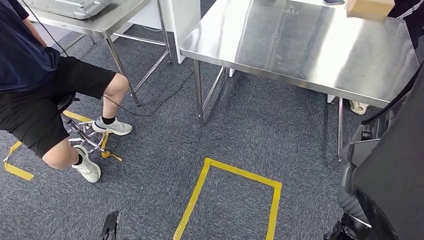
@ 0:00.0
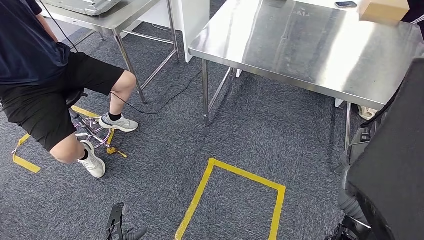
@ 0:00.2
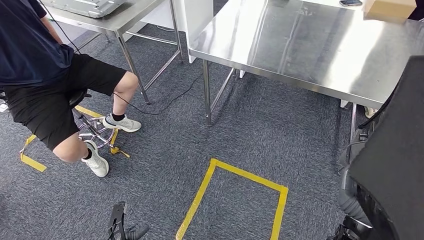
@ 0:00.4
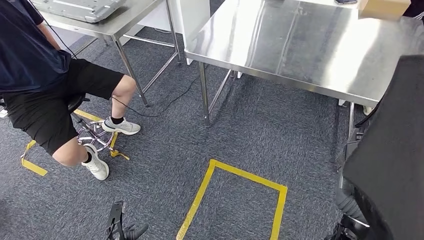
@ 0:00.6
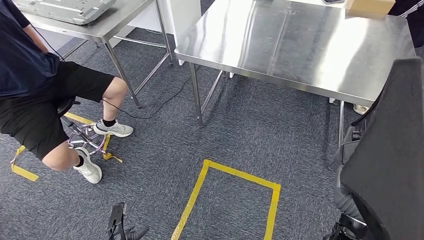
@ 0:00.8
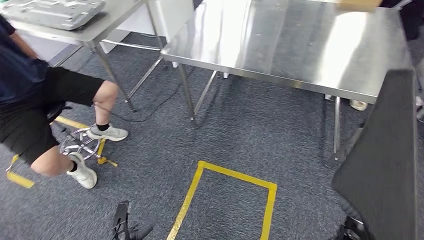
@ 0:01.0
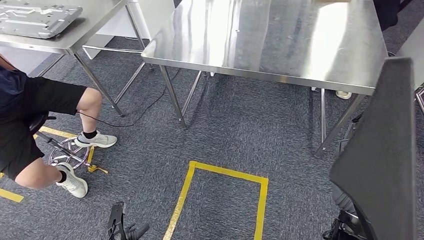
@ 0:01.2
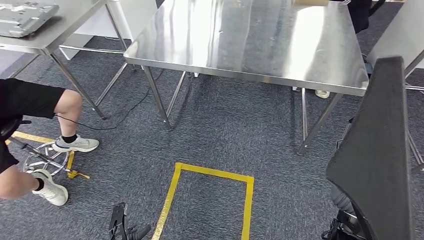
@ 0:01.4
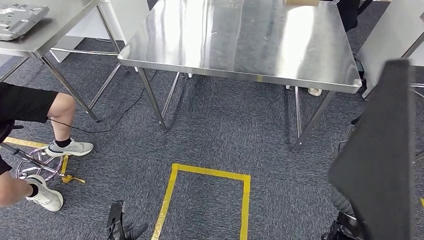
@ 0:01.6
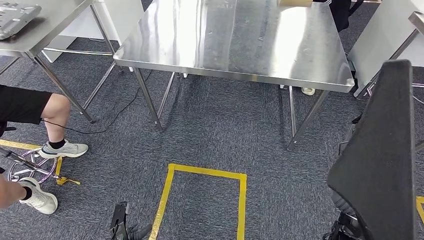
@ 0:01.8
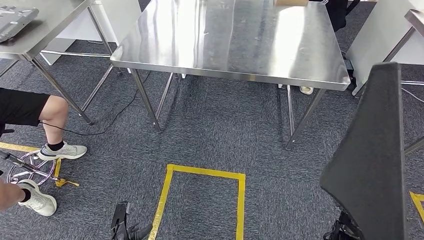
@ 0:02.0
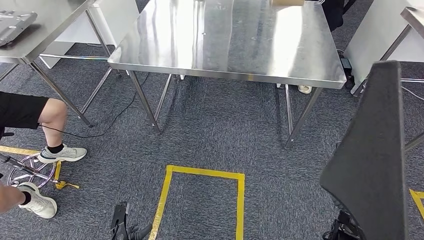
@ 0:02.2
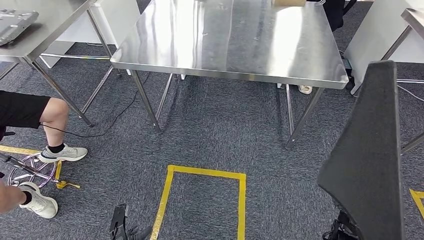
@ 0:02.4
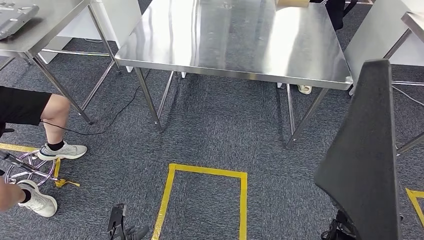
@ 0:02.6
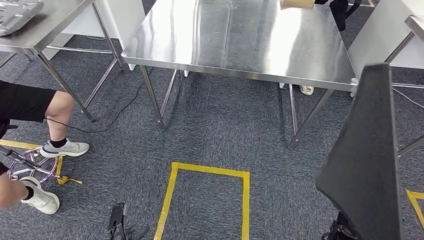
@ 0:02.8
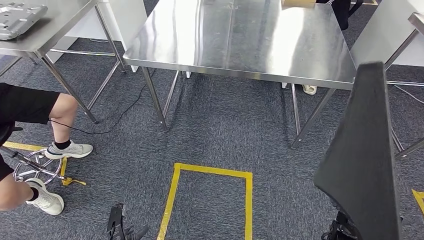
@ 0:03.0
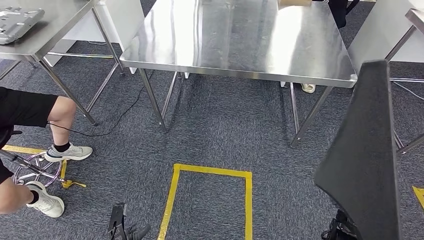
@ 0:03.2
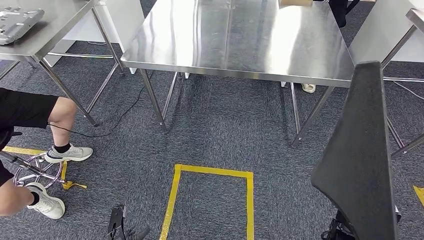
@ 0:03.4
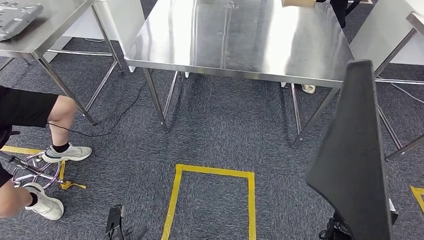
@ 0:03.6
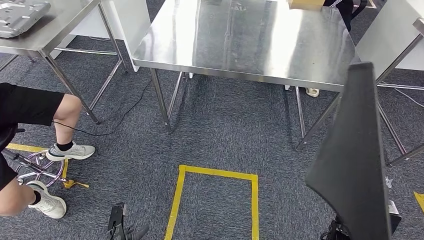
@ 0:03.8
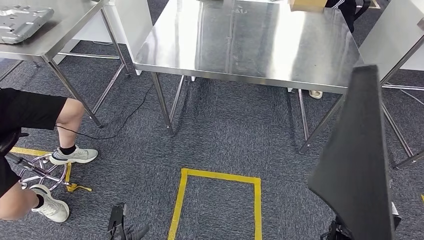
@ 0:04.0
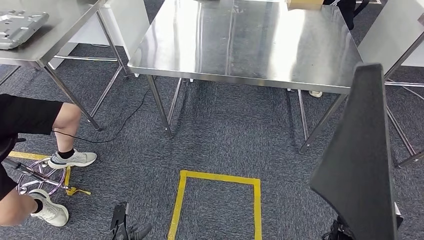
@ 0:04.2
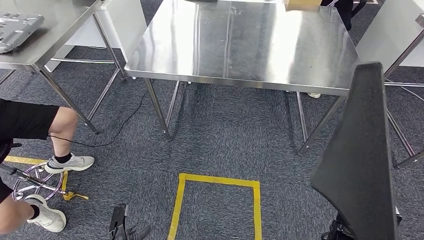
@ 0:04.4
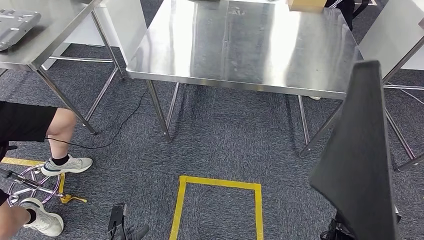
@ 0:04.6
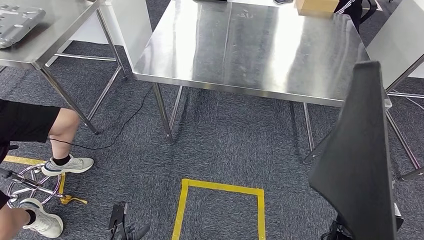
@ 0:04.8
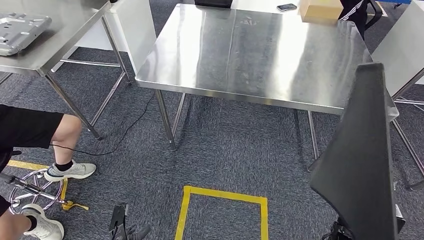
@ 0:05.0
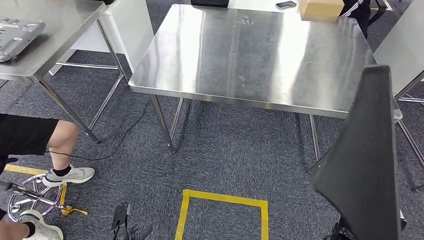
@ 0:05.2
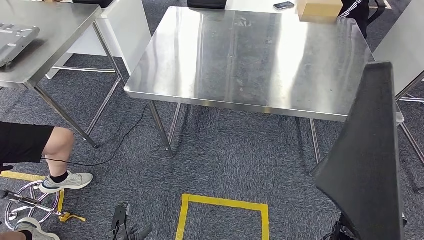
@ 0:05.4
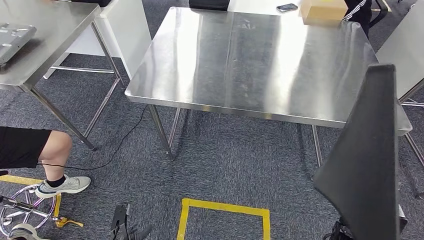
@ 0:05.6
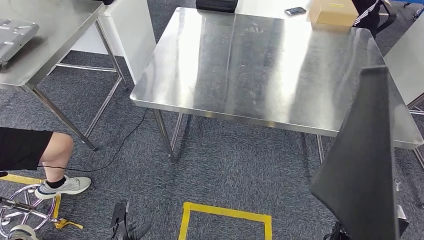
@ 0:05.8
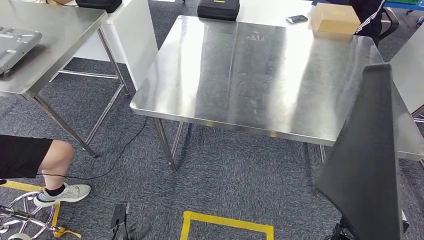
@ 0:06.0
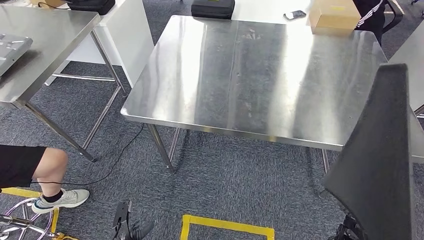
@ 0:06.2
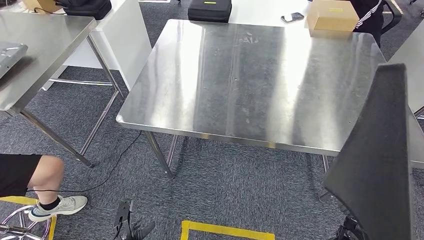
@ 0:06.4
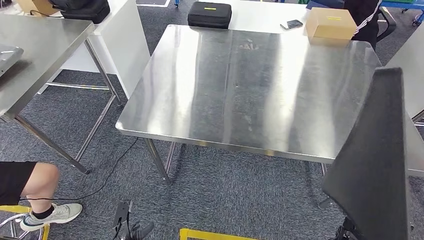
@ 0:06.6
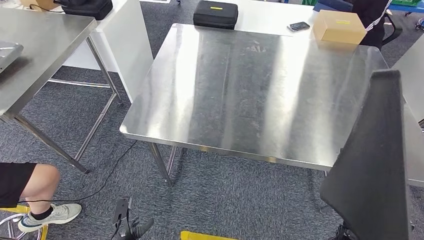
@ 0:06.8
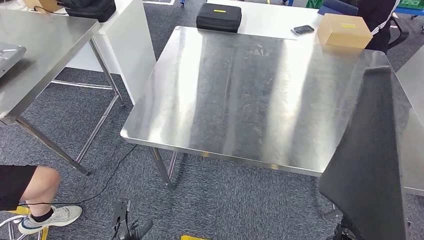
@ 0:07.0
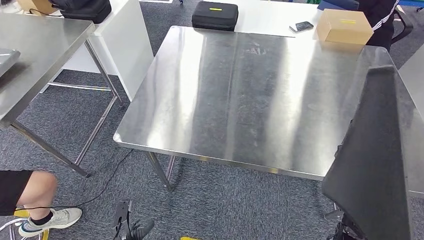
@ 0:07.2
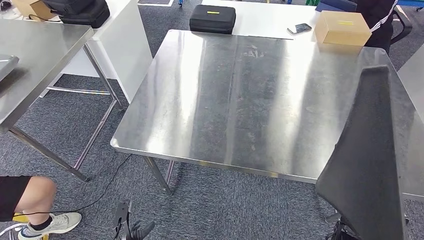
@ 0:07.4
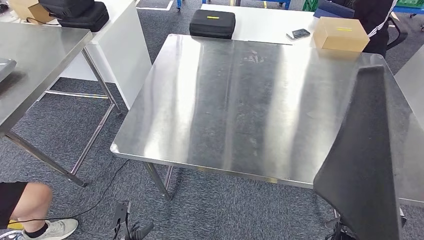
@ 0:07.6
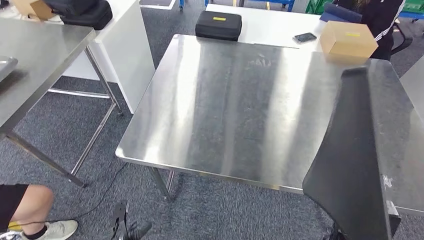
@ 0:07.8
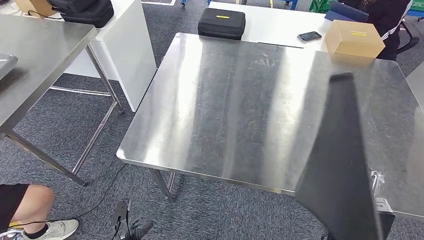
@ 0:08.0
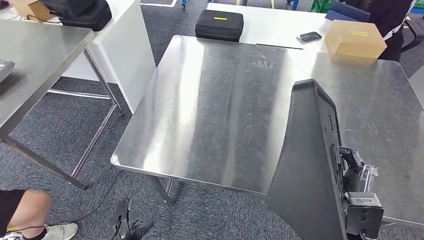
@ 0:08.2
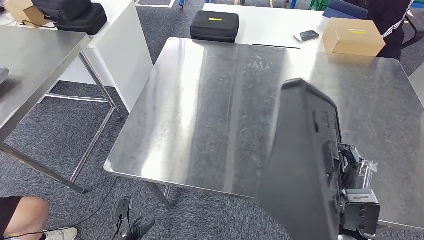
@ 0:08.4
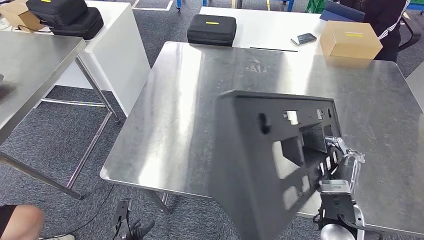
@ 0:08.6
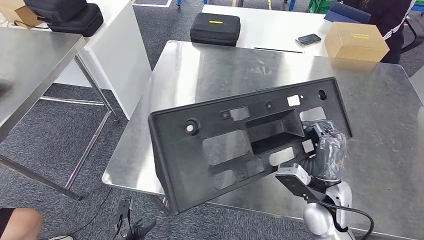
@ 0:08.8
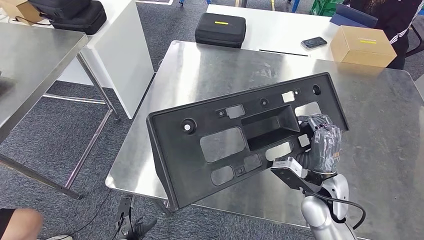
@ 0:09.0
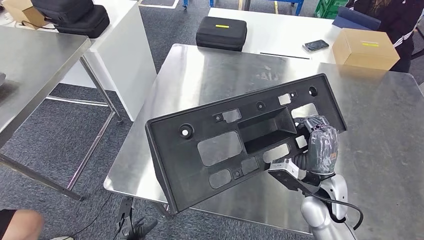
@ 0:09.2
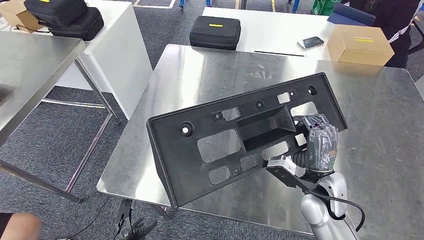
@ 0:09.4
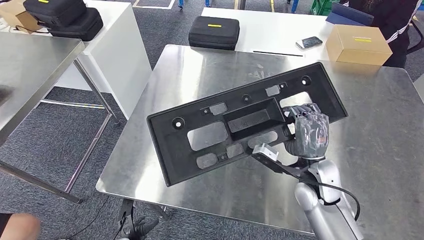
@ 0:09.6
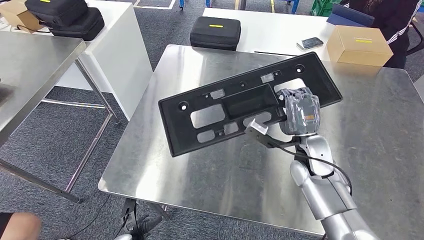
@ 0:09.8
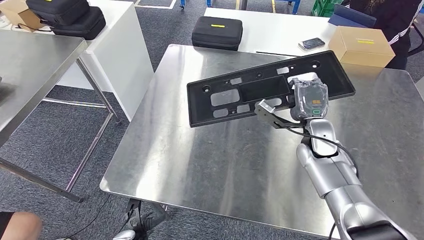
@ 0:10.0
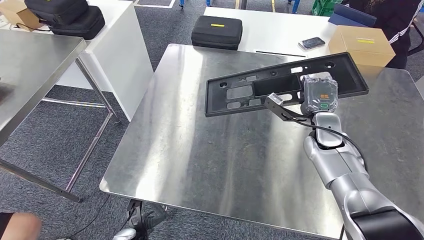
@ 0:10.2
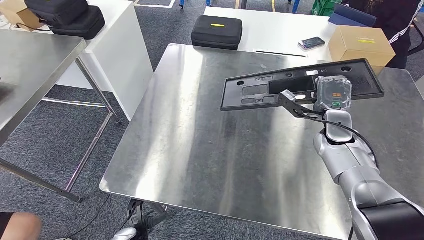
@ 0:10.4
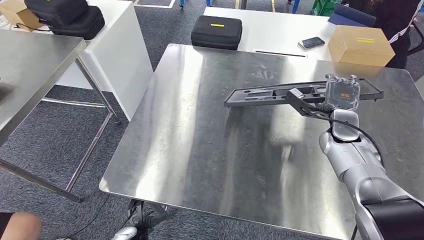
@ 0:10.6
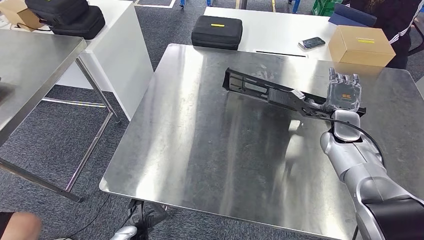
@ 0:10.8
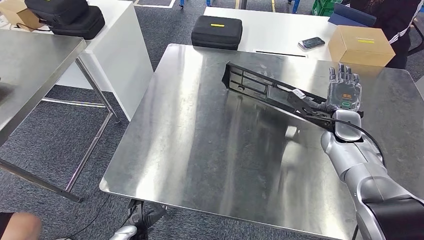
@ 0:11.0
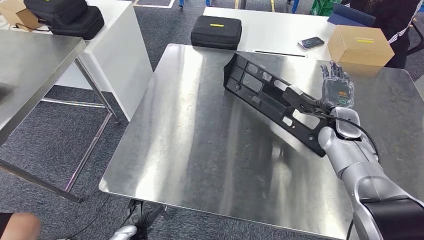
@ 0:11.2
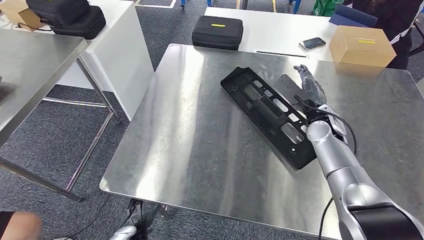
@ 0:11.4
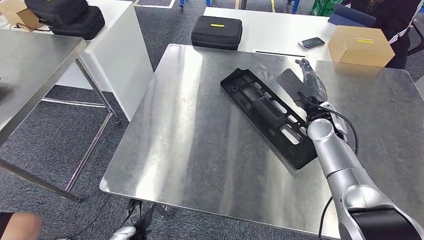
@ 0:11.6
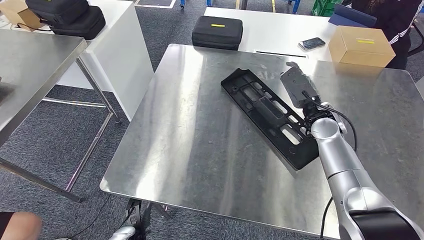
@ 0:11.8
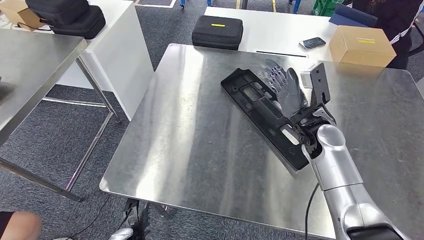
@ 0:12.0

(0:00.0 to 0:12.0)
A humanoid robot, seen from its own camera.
0:10.4 - 0:12.0: The right hand heads to the left, covering about 5 cm.

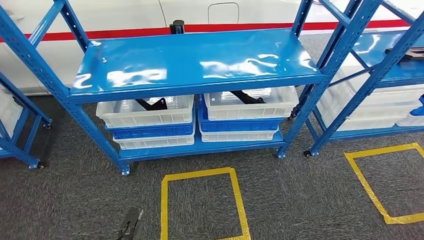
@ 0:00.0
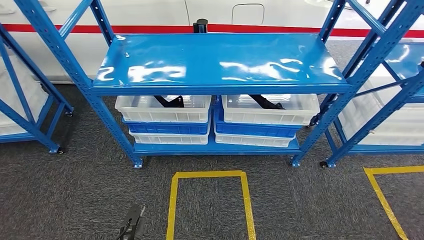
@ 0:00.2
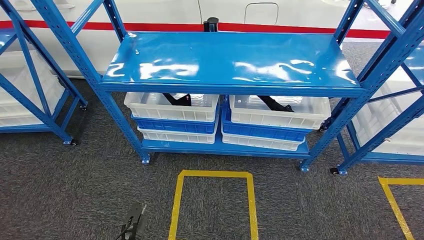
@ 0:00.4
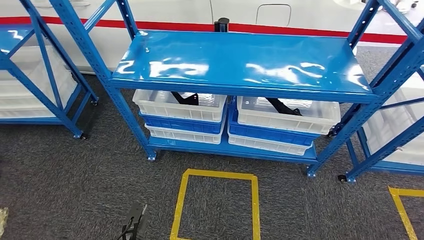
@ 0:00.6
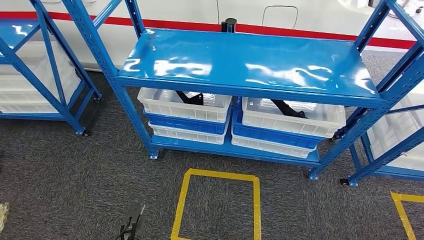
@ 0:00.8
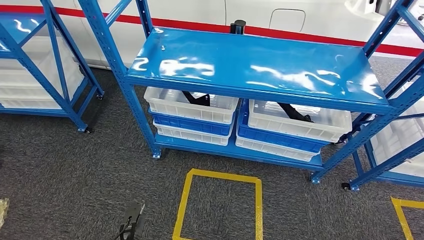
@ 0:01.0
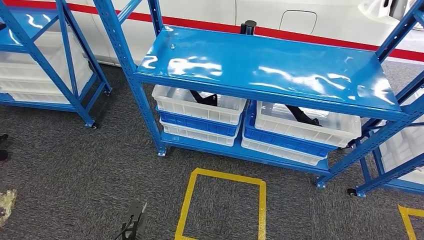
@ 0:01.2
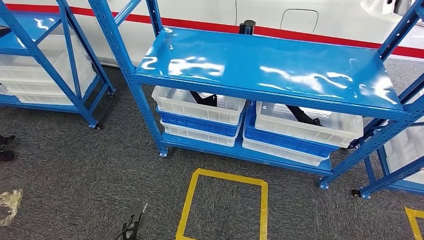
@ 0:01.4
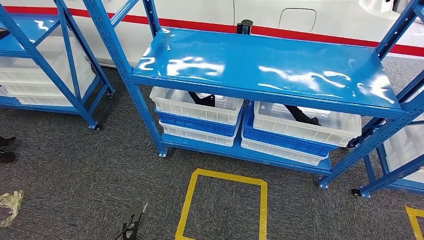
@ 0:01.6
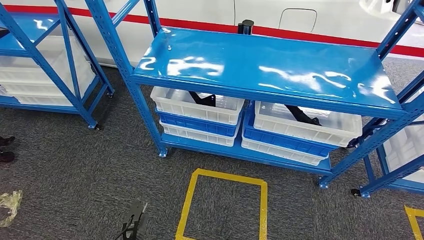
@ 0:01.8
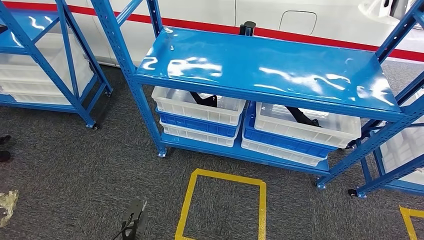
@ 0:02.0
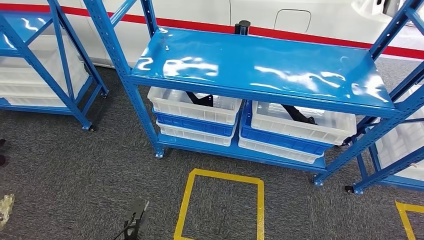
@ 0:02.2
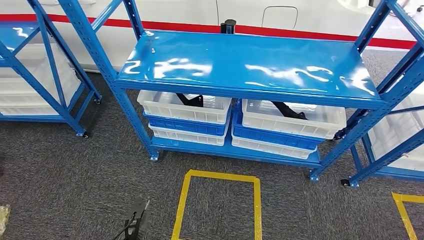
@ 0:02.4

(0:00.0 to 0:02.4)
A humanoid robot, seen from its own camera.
Step, 0:00.0 - 0:02.4: Move to the initial position of the shelf.
